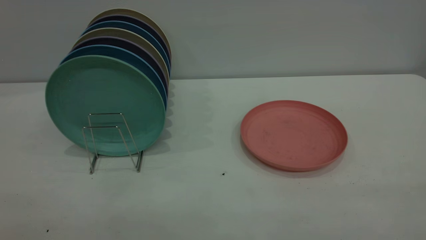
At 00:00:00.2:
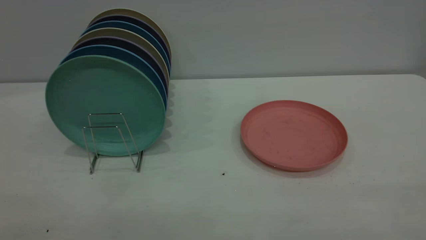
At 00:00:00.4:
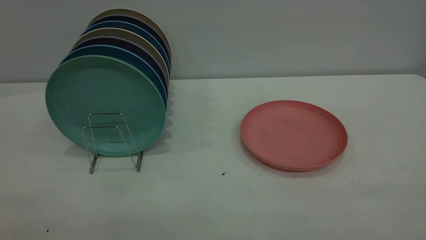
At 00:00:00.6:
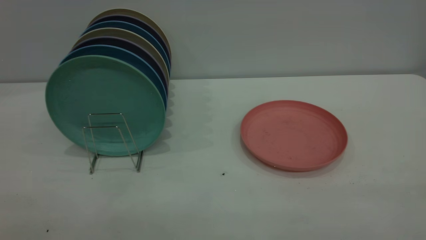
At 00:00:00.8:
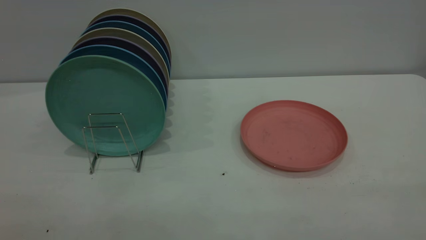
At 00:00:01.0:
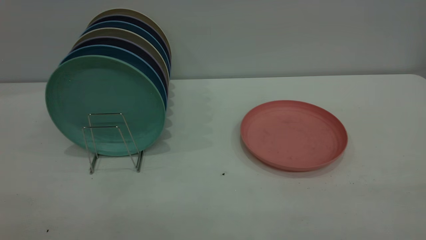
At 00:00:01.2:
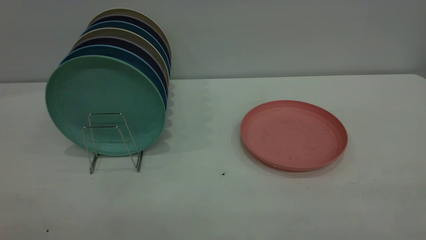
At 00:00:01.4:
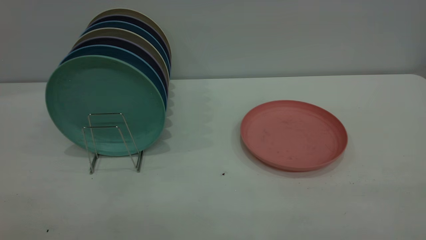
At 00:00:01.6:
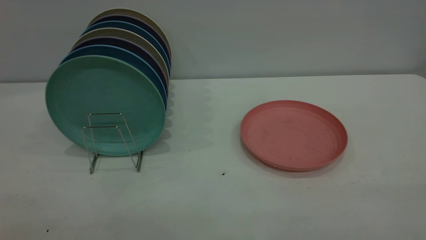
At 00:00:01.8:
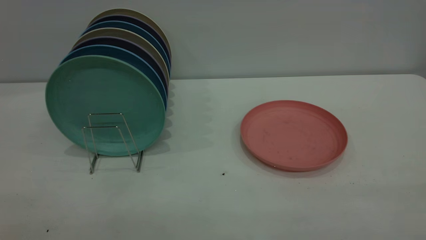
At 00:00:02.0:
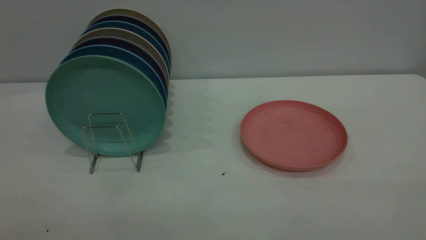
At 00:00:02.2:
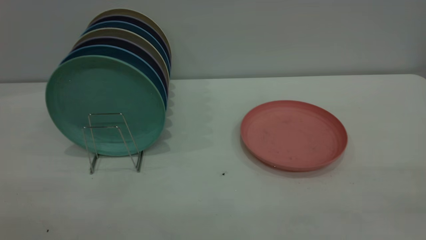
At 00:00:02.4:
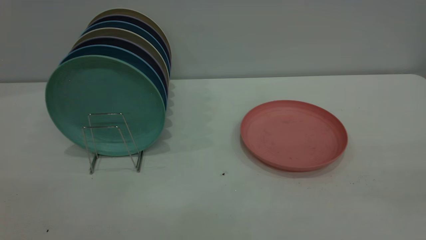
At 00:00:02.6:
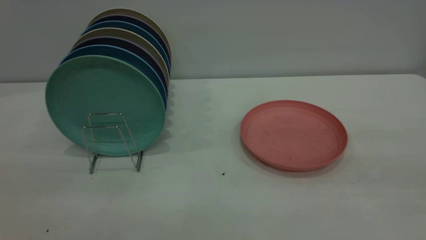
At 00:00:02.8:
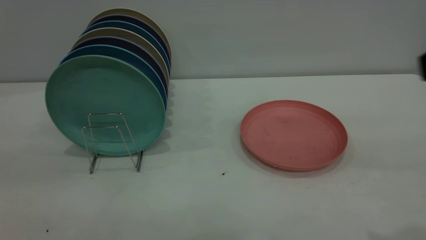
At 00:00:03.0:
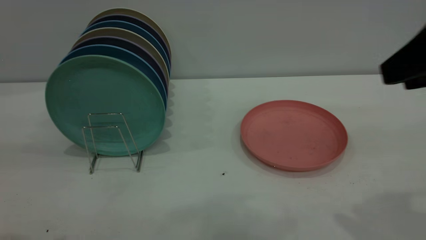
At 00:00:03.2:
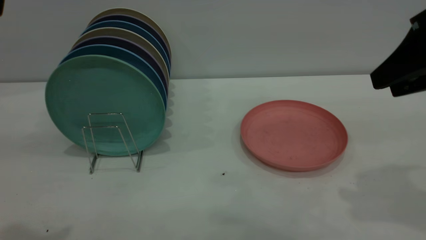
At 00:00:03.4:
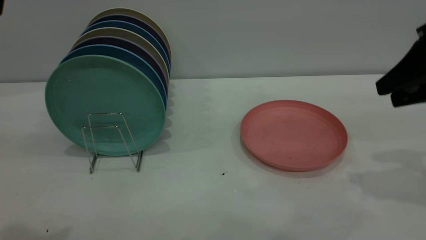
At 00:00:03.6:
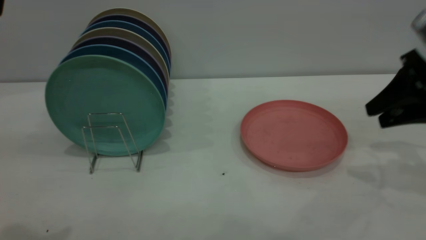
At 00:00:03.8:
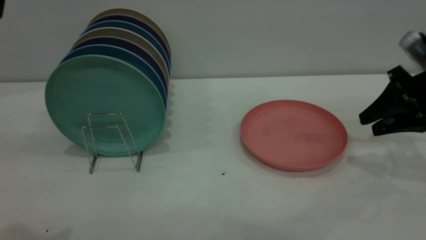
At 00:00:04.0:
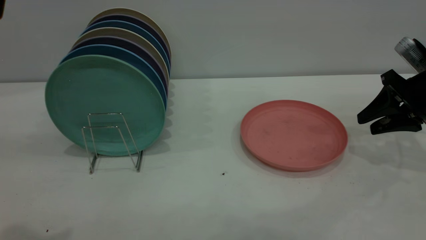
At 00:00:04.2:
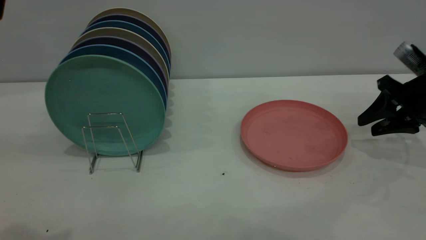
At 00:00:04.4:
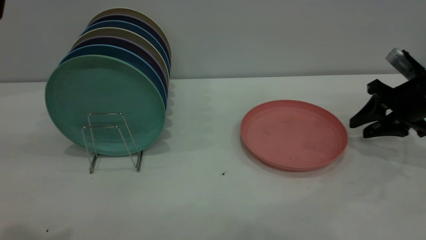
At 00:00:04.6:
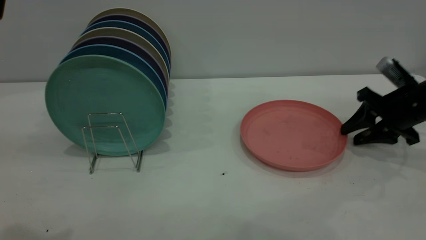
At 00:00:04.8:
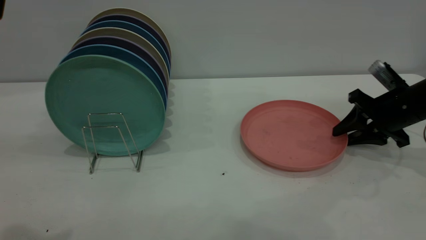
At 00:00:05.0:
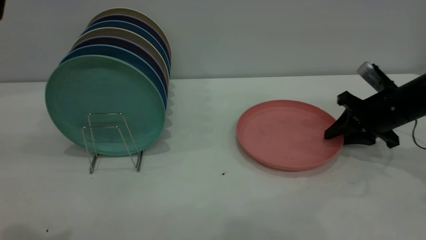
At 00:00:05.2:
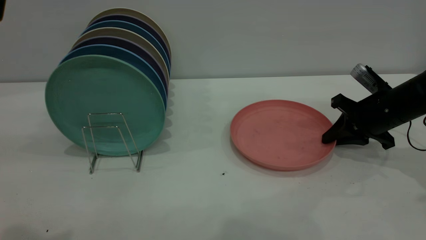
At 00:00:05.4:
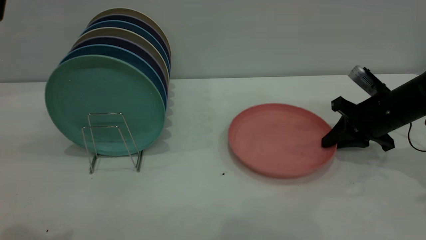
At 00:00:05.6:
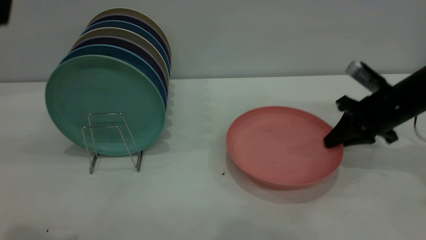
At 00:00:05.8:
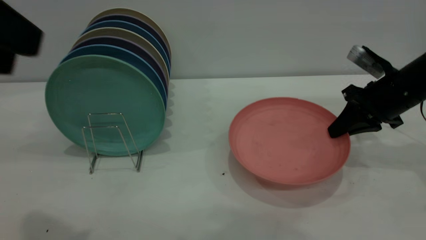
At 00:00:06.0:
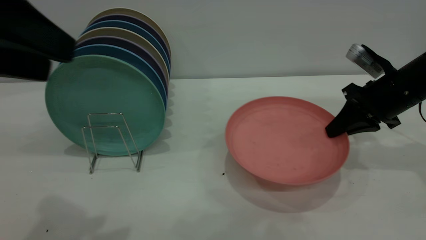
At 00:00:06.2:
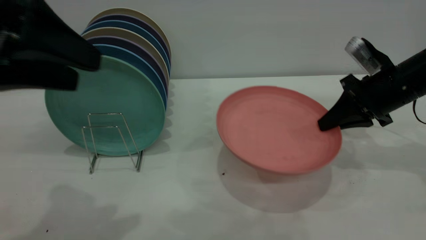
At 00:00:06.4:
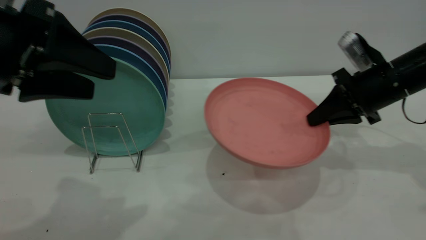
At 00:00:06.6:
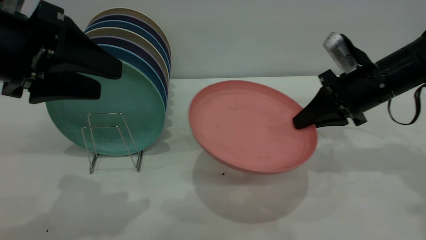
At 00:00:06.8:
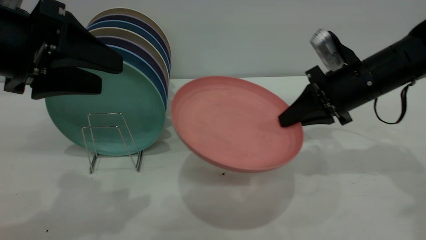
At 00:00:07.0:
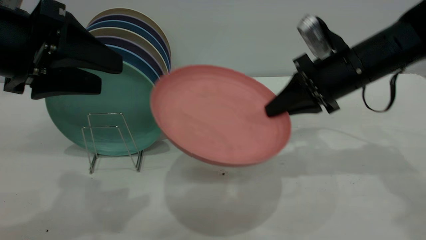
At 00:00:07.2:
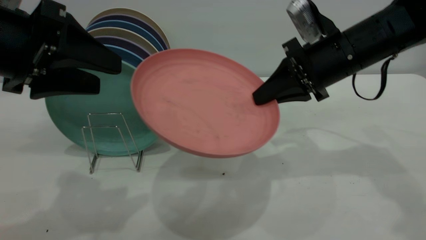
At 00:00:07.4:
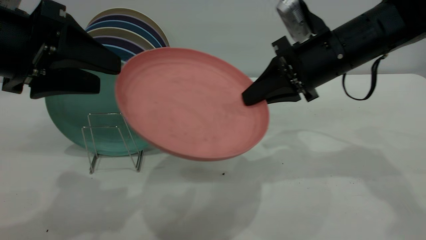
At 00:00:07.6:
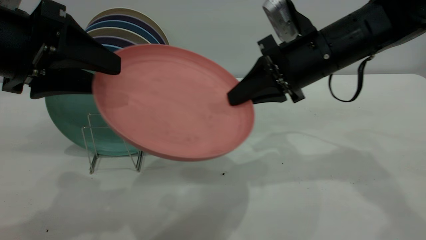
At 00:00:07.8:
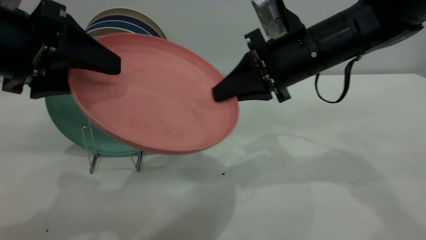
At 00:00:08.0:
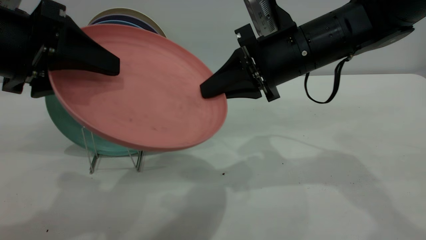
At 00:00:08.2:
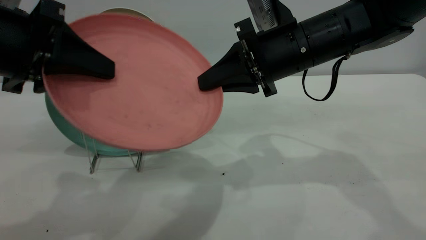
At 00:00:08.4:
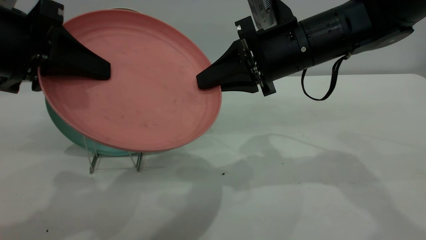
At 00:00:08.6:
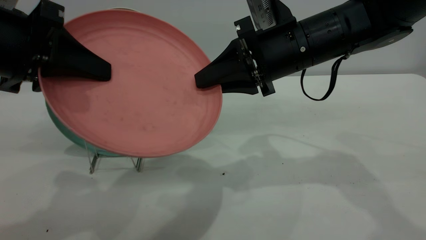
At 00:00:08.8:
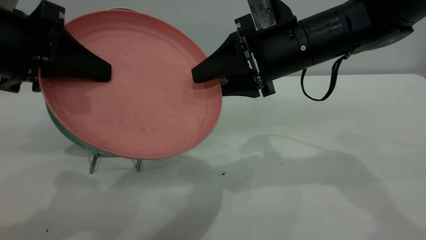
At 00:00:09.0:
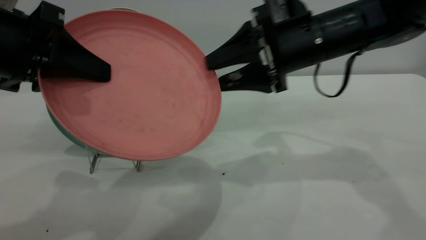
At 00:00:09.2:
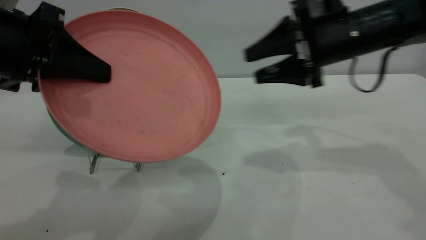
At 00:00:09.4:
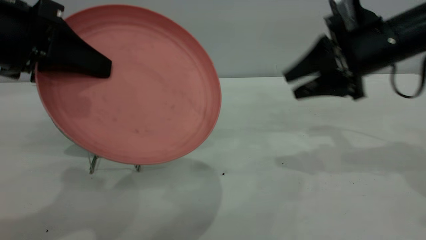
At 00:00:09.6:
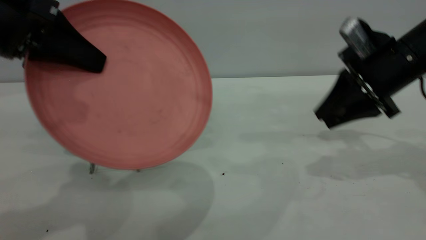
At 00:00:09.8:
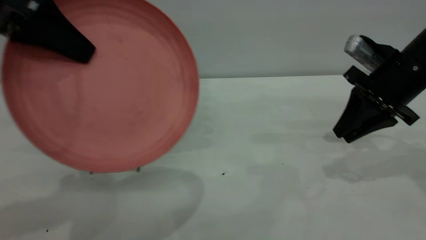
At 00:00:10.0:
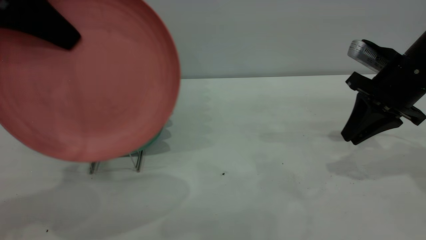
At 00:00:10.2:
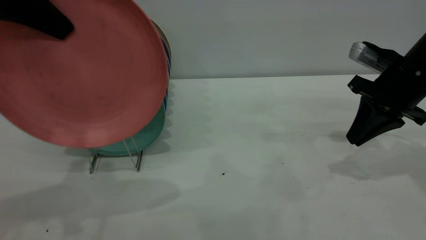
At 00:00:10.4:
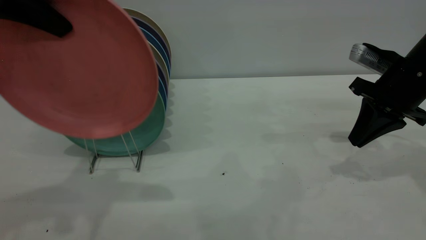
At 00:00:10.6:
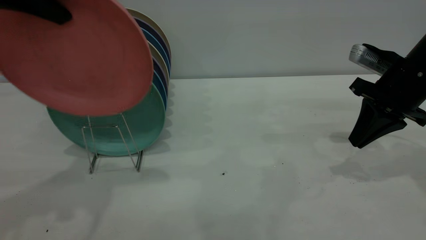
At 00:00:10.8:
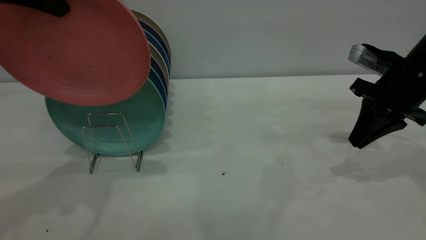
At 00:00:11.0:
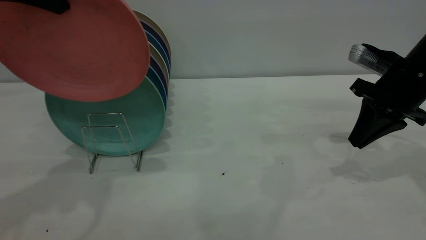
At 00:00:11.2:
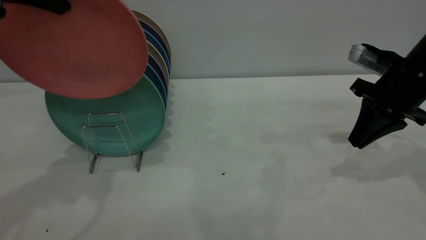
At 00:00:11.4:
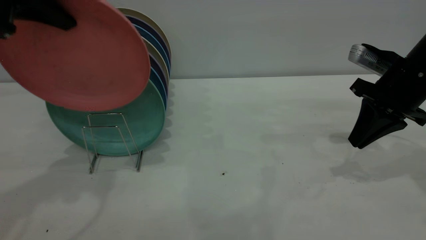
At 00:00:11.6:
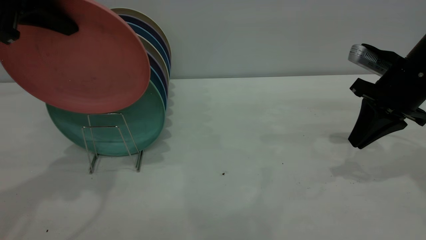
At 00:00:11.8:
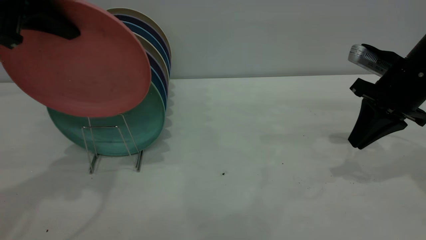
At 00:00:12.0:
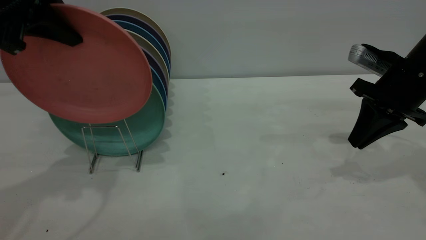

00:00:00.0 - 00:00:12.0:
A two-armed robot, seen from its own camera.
Task of the whole recording: the right gripper grasp the pink plate, the right gripper pass the pink plate to the left gripper, and the left gripper place the pink plate on the plate rack.
Step, 00:00:00.0 - 00:00:06.0: Pick up the plate with the right gripper.
Step, 00:00:06.4 - 00:00:09.2: Pass the plate from the right gripper to the left gripper.
00:00:00.0 - 00:00:01.6: Both grippers stay about where they are.
00:00:01.6 - 00:00:03.0: The right gripper travels forward by some 25 cm, and opens.
00:00:03.0 - 00:00:04.4: The right gripper moves downward, forward and to the right, roughly 30 cm.
00:00:04.4 - 00:00:06.0: The left gripper shifts approximately 10 cm downward and forward; the right gripper moves to the left, some 5 cm, and closes up.
00:00:06.0 - 00:00:07.6: The right gripper is displaced to the left and upward by some 15 cm; the left gripper heads downward, covering about 5 cm.
00:00:07.6 - 00:00:09.0: The left gripper closes. The right gripper opens.
00:00:09.0 - 00:00:10.4: The right gripper goes some 15 cm to the right, and closes. Meanwhile the left gripper moves upward, approximately 10 cm.
00:00:10.4 - 00:00:12.0: The left gripper moves about 5 cm.

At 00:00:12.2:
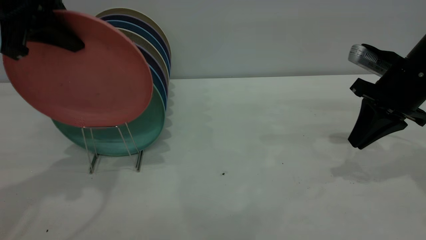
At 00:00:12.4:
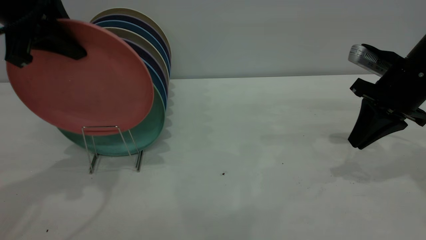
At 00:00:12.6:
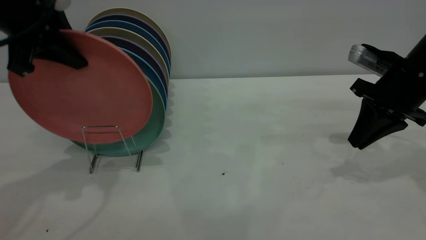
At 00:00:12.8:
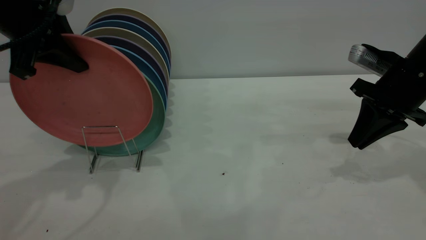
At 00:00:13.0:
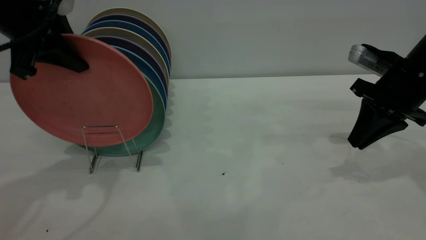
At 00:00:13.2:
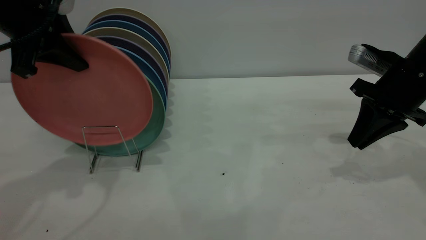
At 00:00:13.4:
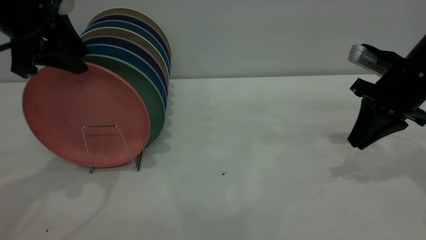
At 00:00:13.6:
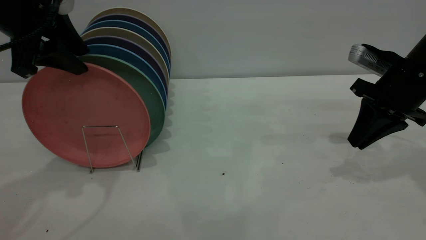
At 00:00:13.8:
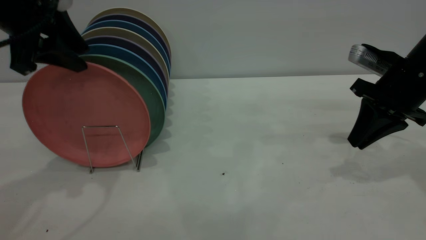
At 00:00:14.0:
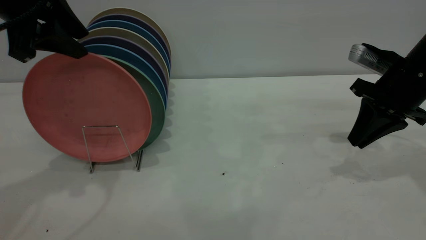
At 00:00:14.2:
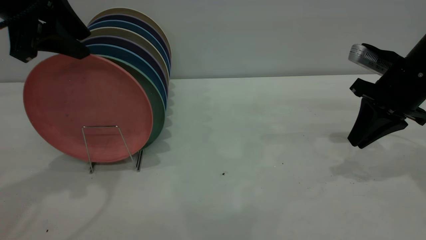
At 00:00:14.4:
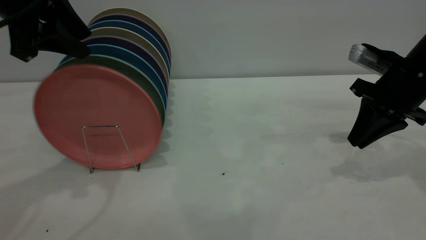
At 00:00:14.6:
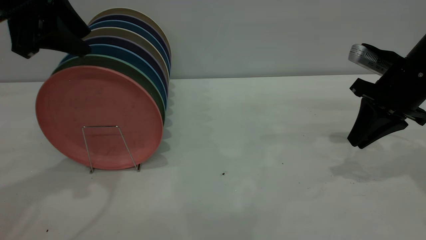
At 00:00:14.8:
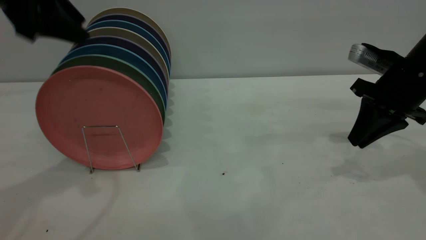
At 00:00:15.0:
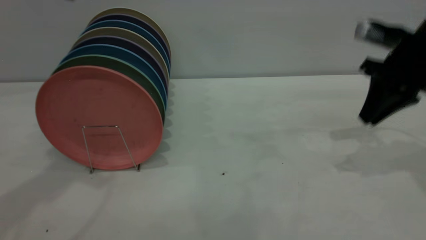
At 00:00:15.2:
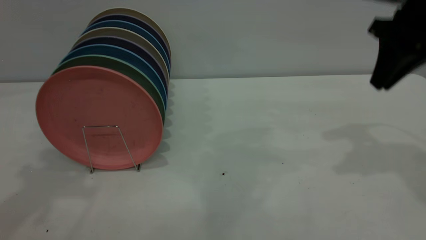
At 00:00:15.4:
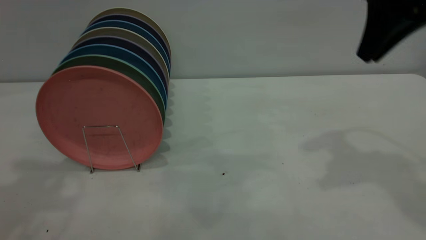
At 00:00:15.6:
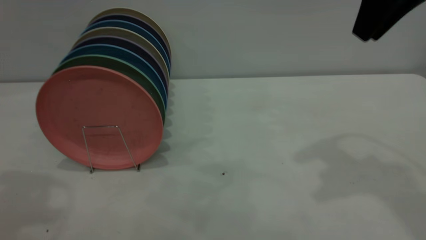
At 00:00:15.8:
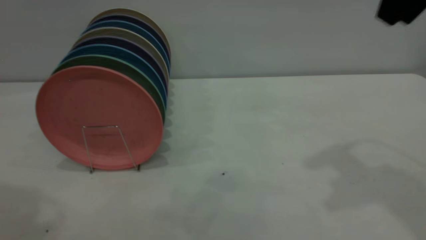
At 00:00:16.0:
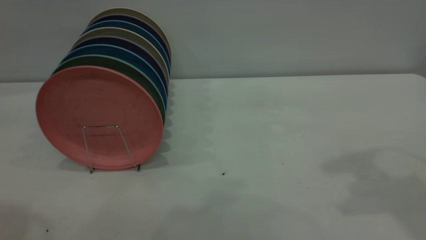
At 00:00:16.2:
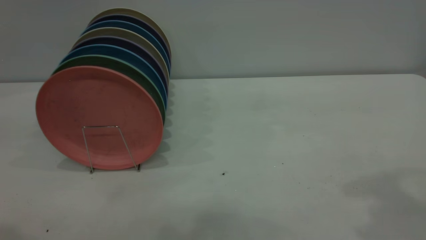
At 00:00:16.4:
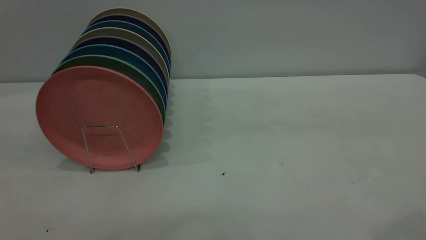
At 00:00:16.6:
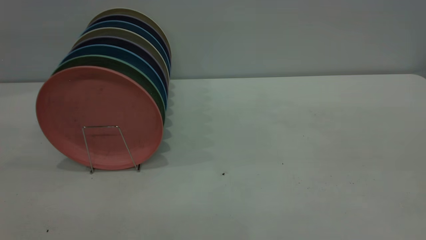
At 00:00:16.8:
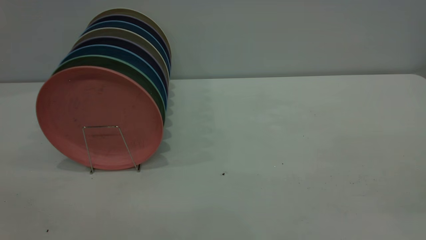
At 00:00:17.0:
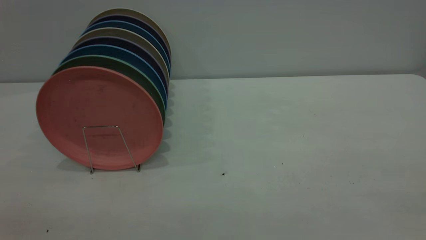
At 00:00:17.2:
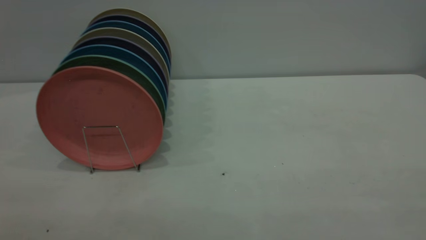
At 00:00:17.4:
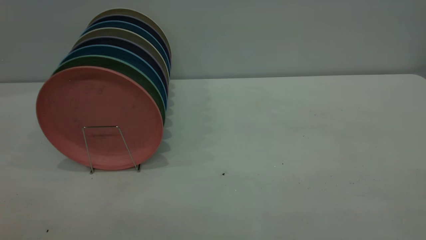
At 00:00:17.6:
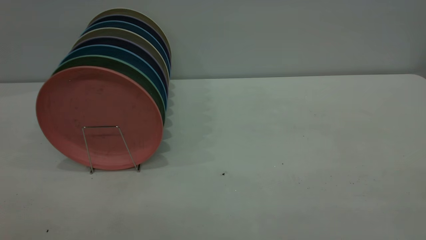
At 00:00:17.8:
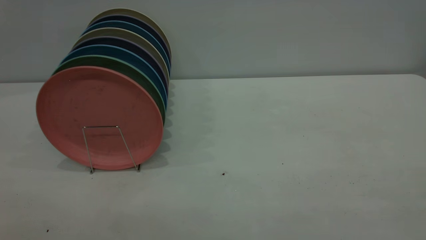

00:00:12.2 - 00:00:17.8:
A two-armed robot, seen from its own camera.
Task of the whole recording: the right gripper grasp the pink plate, the right gripper pass the pink plate to the left gripper, and the left gripper place the pink plate on the plate rack.
Step, 00:00:12.2 - 00:00:14.8: Place the plate on the shelf.
00:00:12.2 - 00:00:13.6: The left gripper opens its fingers.
00:00:13.6 - 00:00:15.0: The left gripper shifts approximately 10 cm upward. The right gripper moves upward, approximately 5 cm.
00:00:15.0 - 00:00:16.4: The right gripper moves backward and upward, about 35 cm, and opens up.
